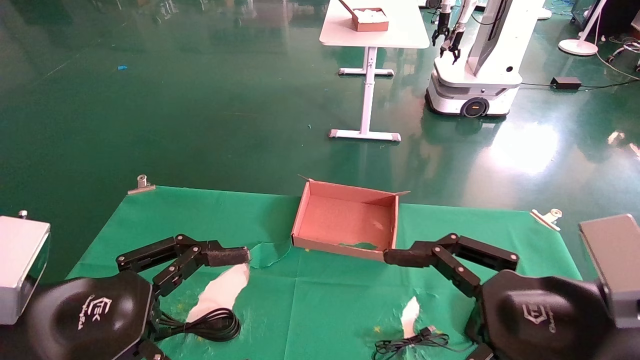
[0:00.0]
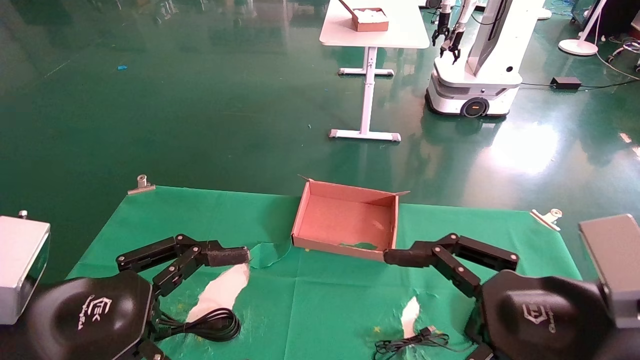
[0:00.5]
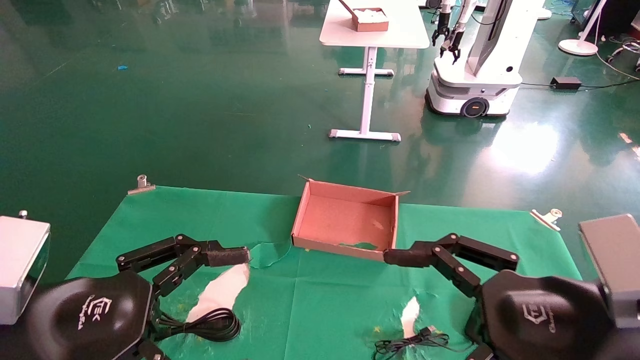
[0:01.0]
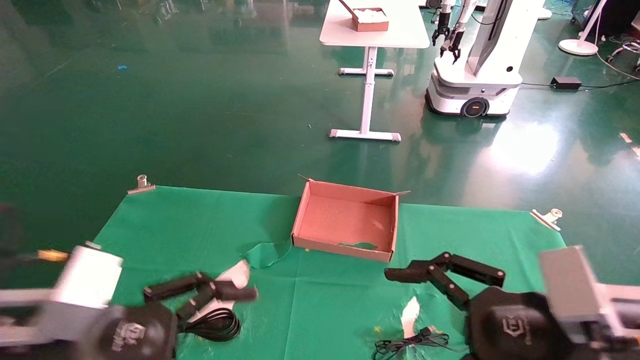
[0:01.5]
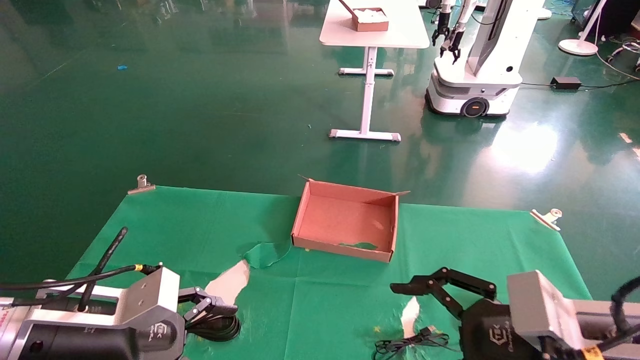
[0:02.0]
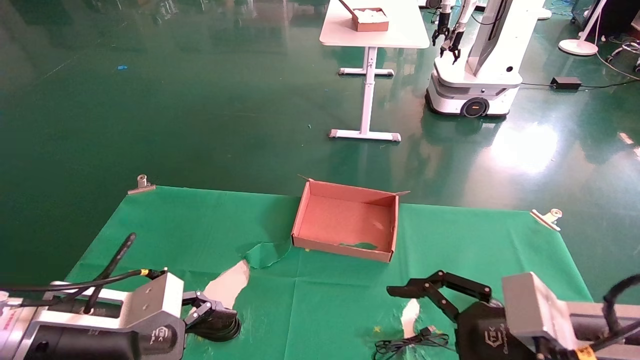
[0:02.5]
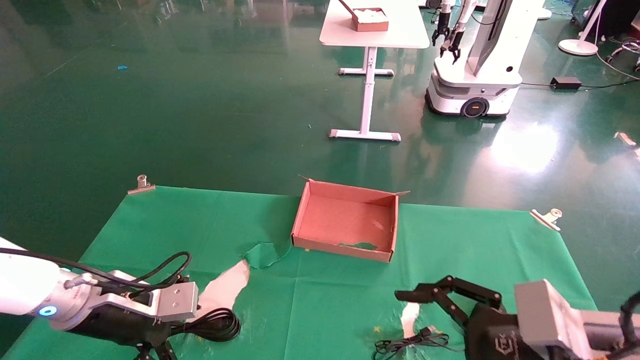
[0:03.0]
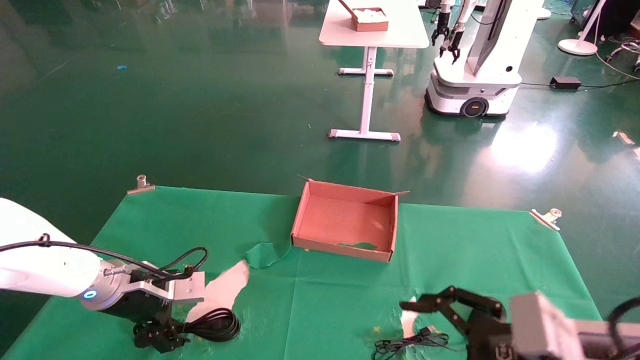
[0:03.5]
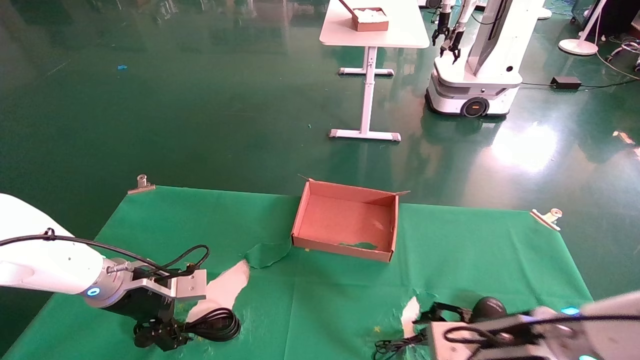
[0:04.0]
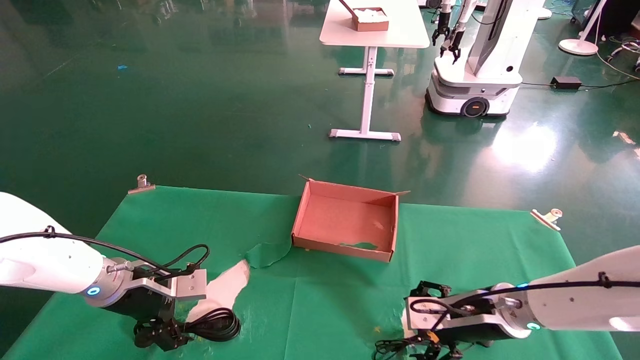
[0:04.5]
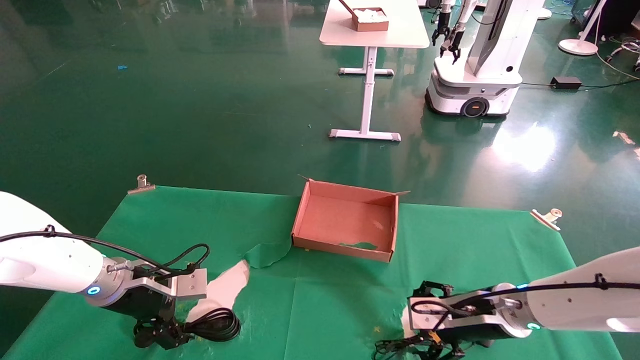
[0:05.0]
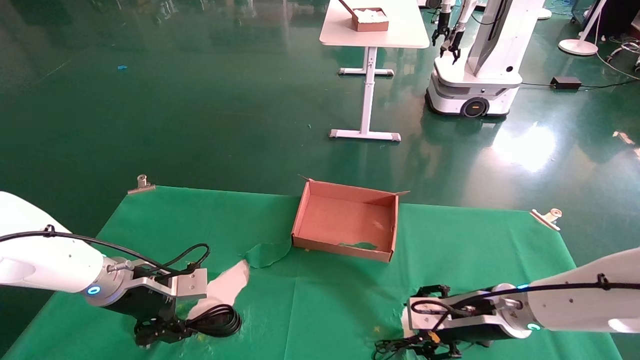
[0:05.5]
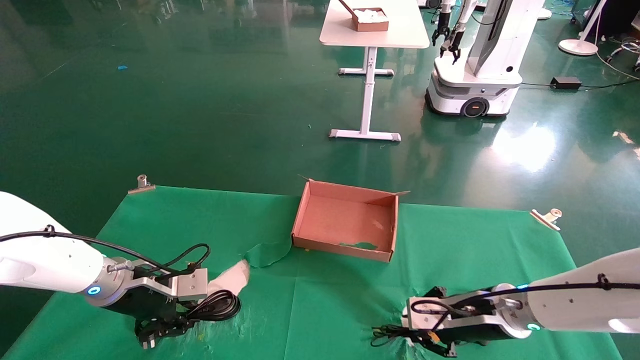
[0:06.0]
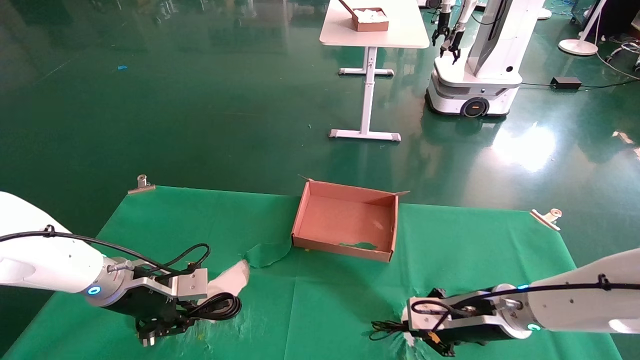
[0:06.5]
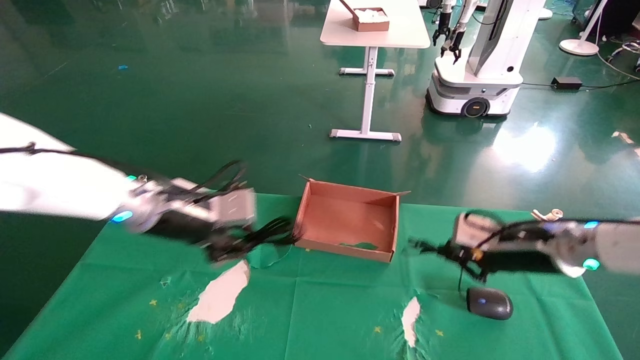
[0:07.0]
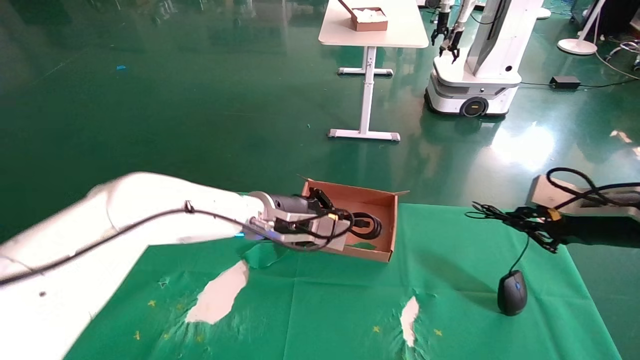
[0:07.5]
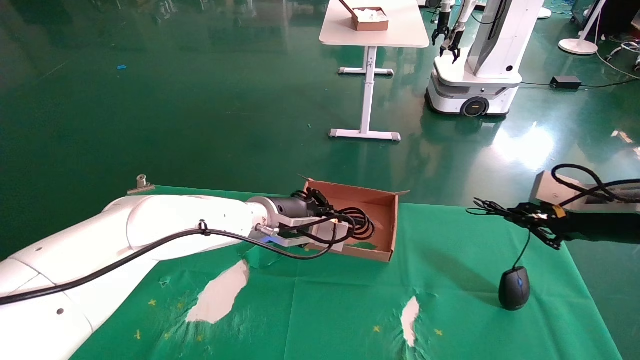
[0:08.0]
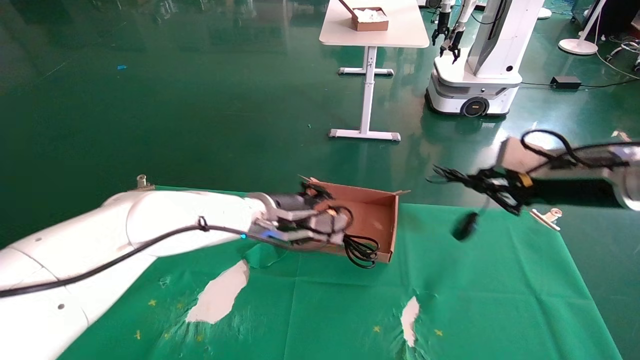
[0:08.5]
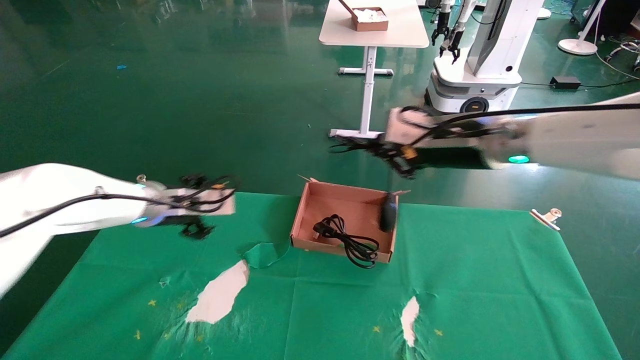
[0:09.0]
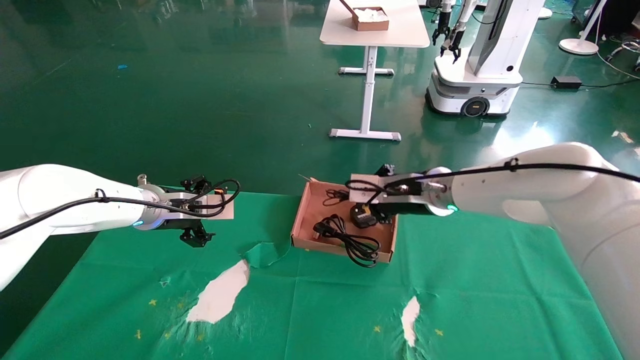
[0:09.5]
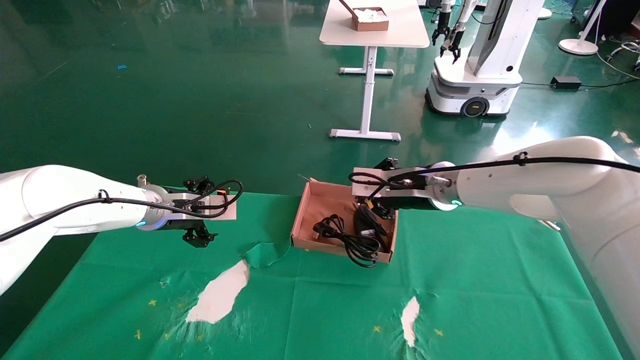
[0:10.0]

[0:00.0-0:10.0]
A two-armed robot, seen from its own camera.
Step, 0:02.5 to 0:07.0: Grab and lift both the mouse and power cord from the accessory packaging area at the same time.
0:00.0 to 0:02.0: The right gripper changes place by about 5 cm; the left gripper heads forward and downward, covering about 10 cm.
0:02.0 to 0:04.0: The right gripper shifts roughly 15 cm forward and downward, while the left gripper is displaced forward by roughly 15 cm.
0:04.0 to 0:06.0: The left gripper closes its fingers, while the right gripper travels forward by some 5 cm, and closes its fingers.
0:06.0 to 0:08.0: The right gripper travels upward and to the right by about 20 cm; the left gripper heads to the right, covering about 20 cm.
0:08.0 to 0:10.0: The right gripper is displaced to the left and forward by about 25 cm, while the left gripper heads to the left, covering roughly 20 cm, and opens up.

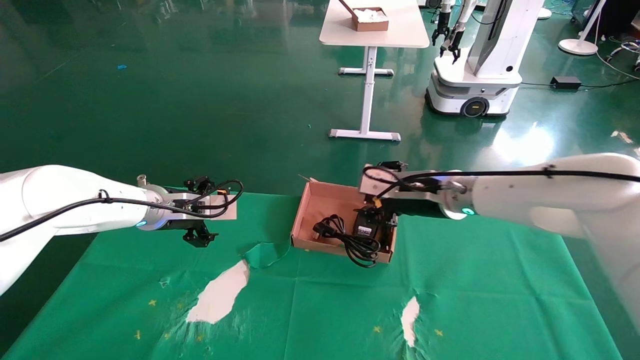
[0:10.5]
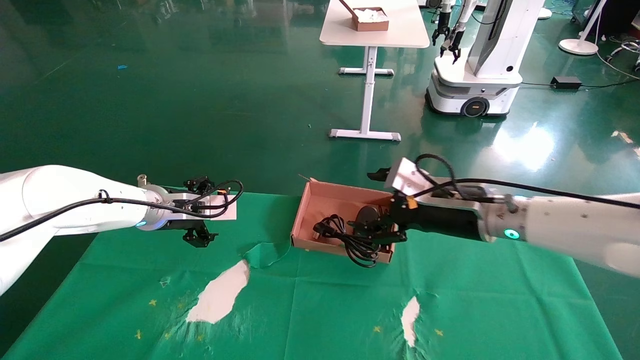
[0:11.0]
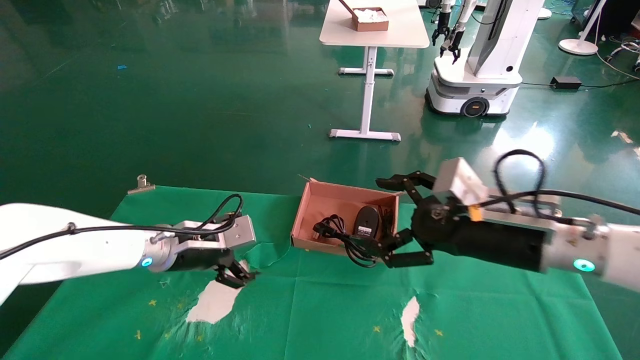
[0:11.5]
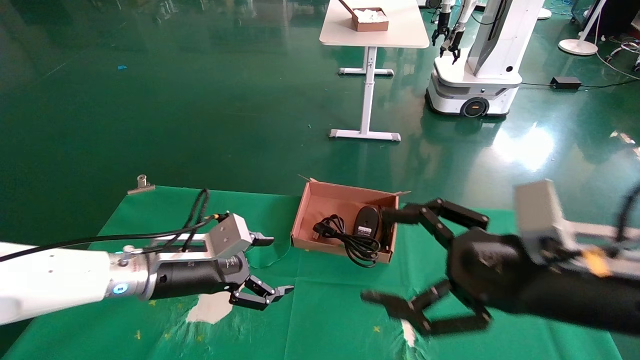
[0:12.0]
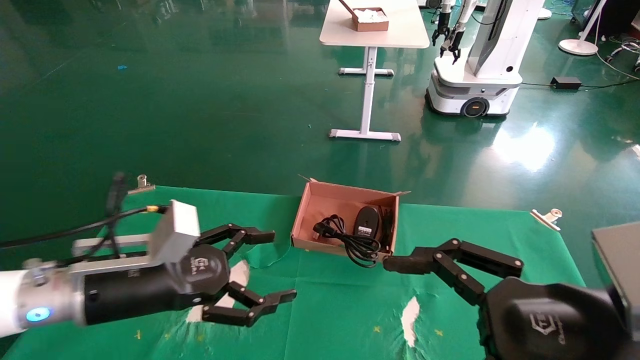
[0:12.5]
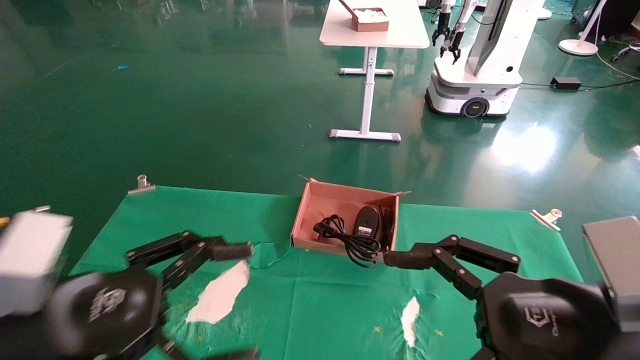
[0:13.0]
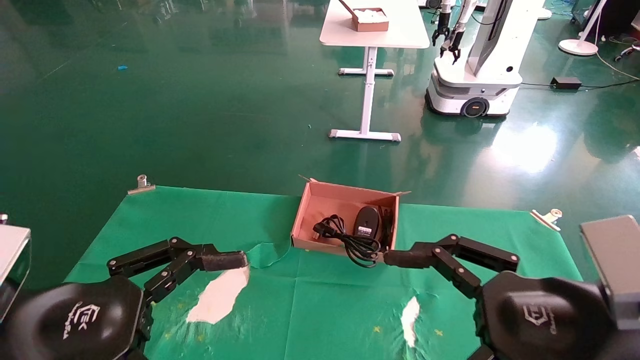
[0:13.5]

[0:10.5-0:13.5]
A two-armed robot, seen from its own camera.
0:10.5 to 0:12.0: The left gripper goes approximately 10 cm backward and downward. The right gripper heads backward, covering some 20 cm, and opens up.
0:12.0 to 0:13.5: The left gripper is displaced backward by about 20 cm; the right gripper heads backward, covering some 5 cm.

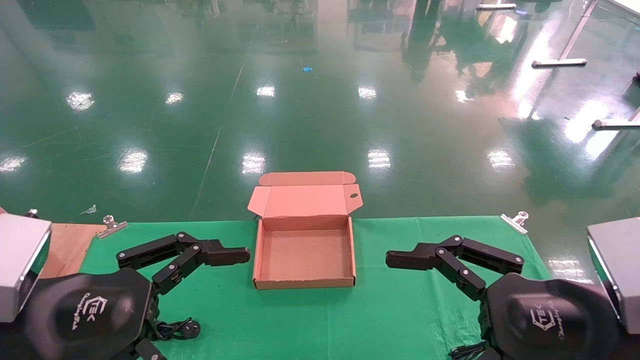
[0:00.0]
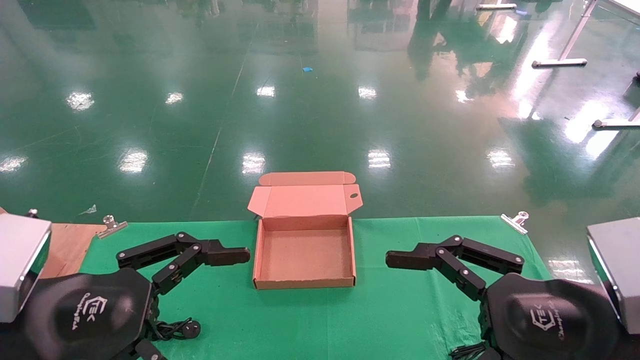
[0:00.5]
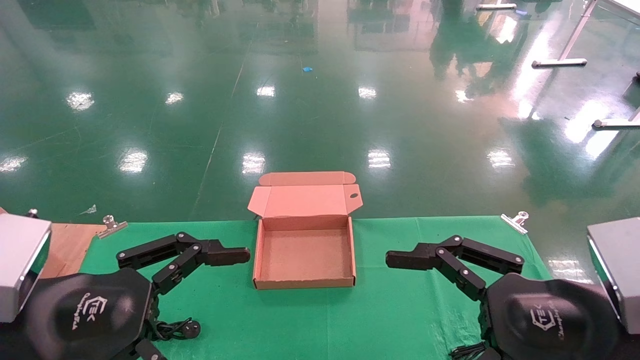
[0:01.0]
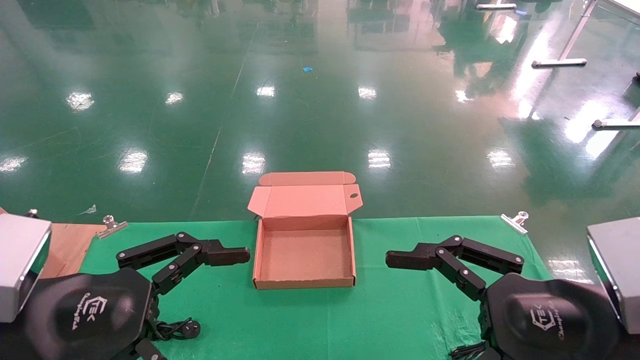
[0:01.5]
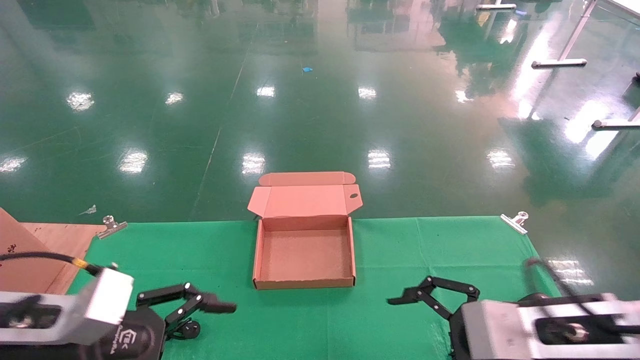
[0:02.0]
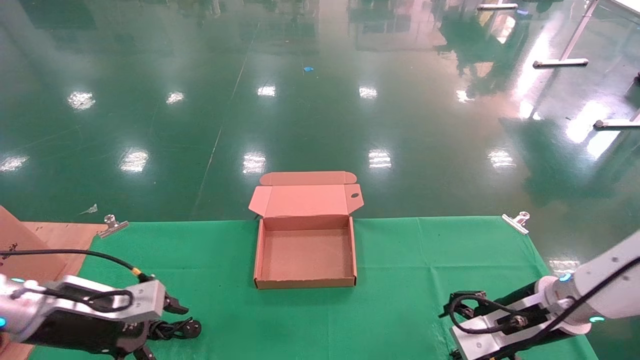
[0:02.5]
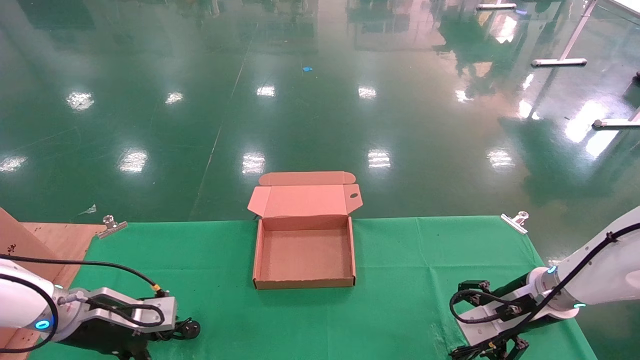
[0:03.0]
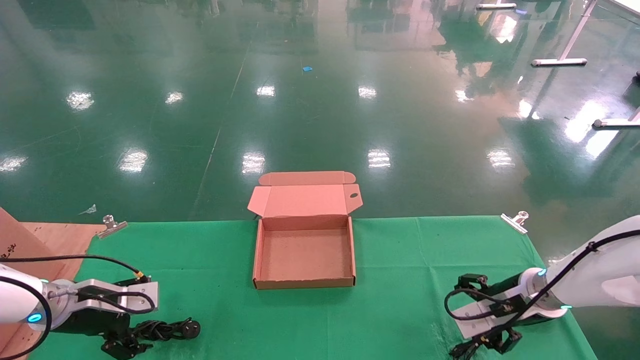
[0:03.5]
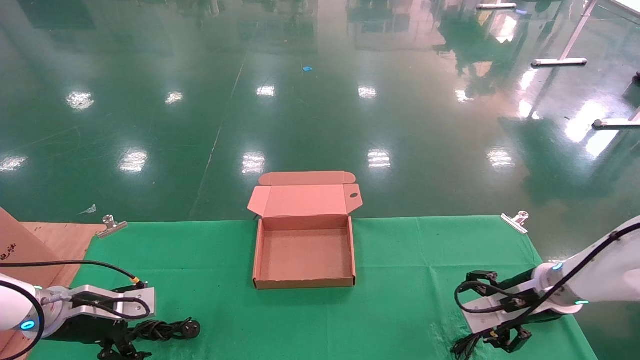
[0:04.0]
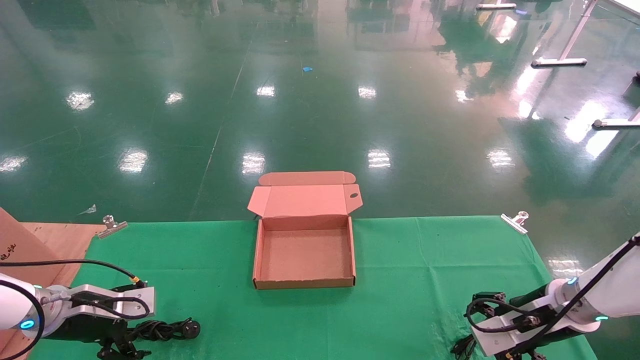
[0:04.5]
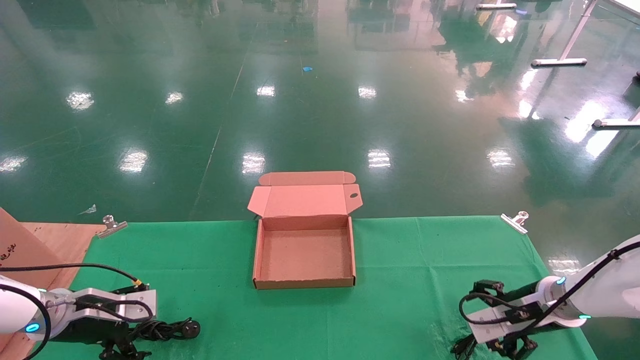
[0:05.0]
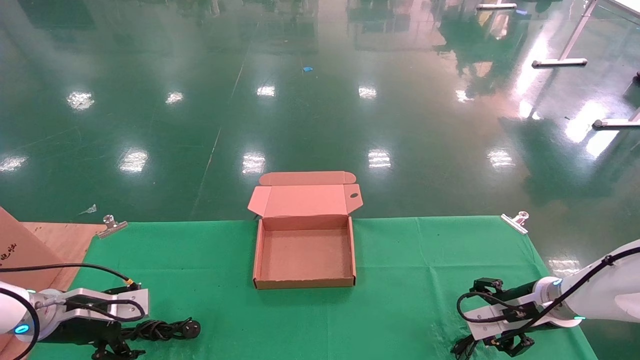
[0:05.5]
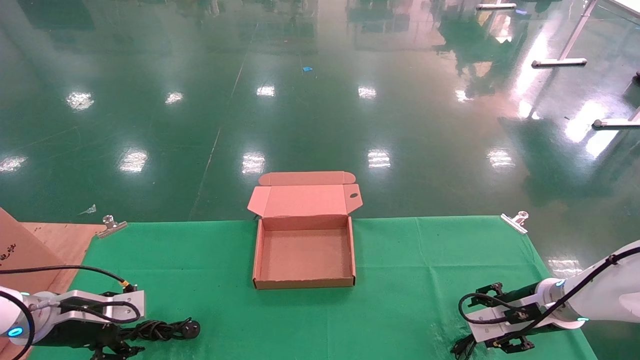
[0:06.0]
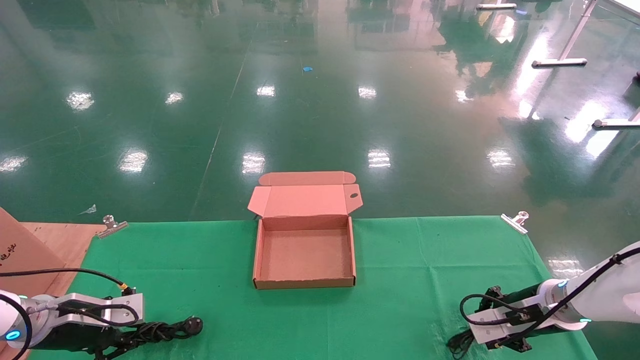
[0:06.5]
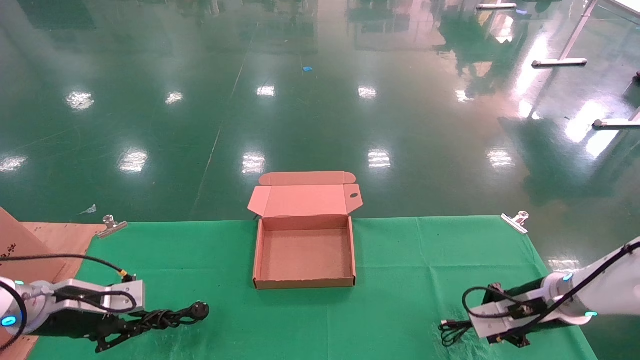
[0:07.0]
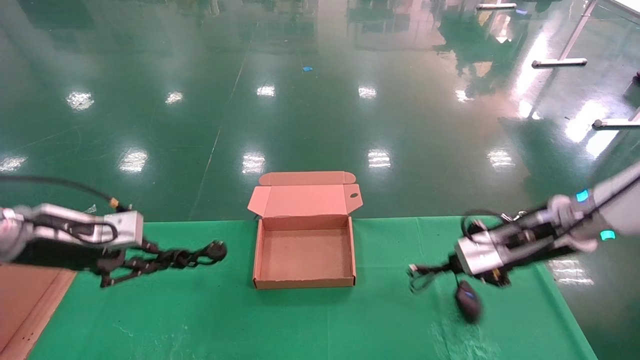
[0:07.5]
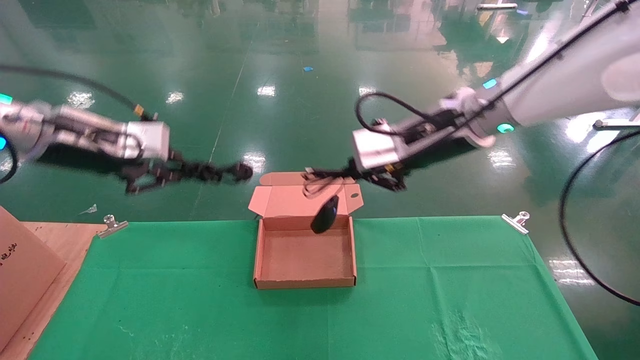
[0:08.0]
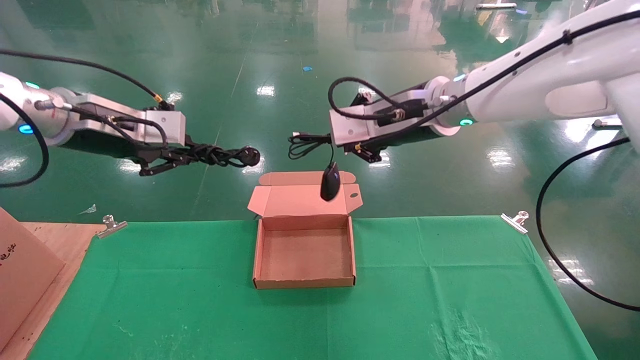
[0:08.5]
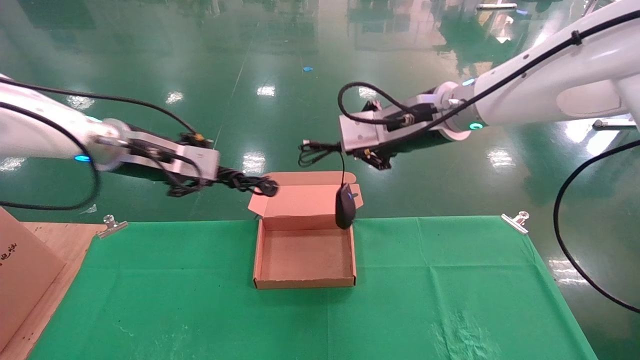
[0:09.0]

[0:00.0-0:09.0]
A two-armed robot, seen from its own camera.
Step, 0:02.0 to 0:06.5: Grab and lift both the mouse and power cord from the accessory packaging area at the same time.
0:00.0 to 0:02.0: Both grippers travel together forward and downward, approximately 10 cm.
0:02.0 to 0:04.5: The right gripper goes about 15 cm forward, downward and to the right. Meanwhile the left gripper shifts approximately 20 cm forward, to the left and downward.
0:04.5 to 0:07.0: The left gripper closes, while the right gripper closes up.
0:07.0 to 0:09.0: The right gripper is displaced upward and to the left by about 30 cm. The left gripper moves upward and to the right, some 25 cm.